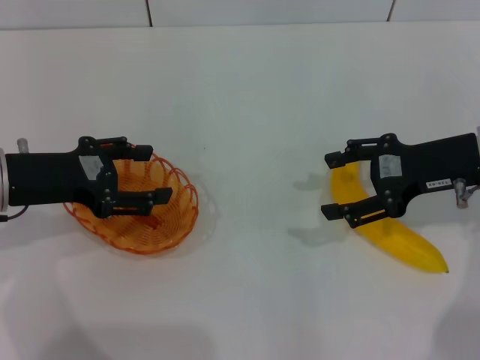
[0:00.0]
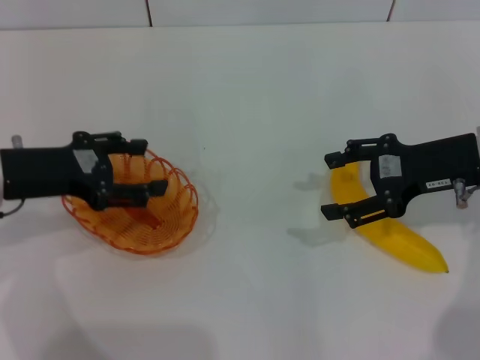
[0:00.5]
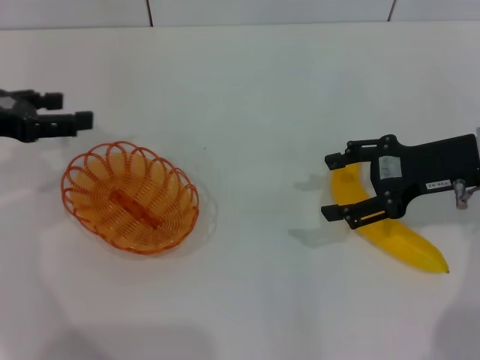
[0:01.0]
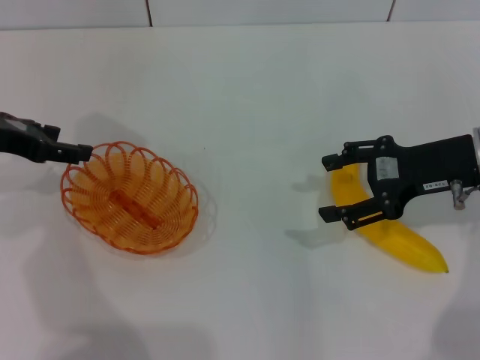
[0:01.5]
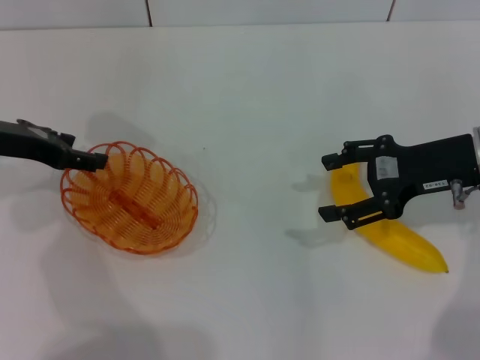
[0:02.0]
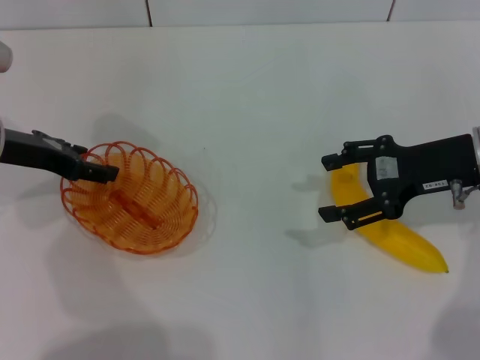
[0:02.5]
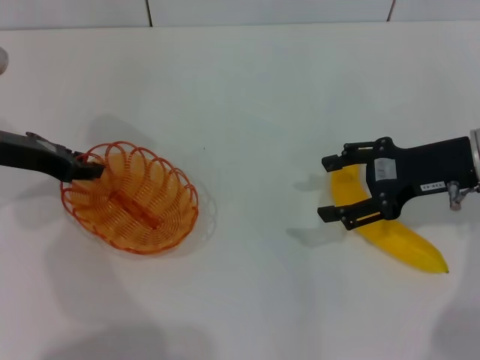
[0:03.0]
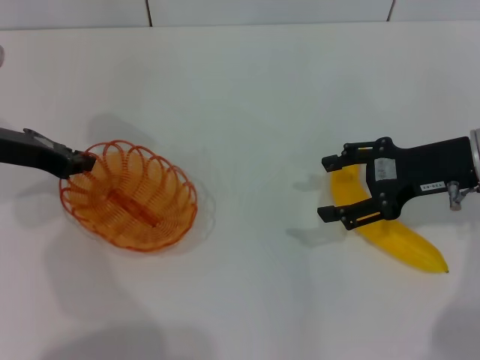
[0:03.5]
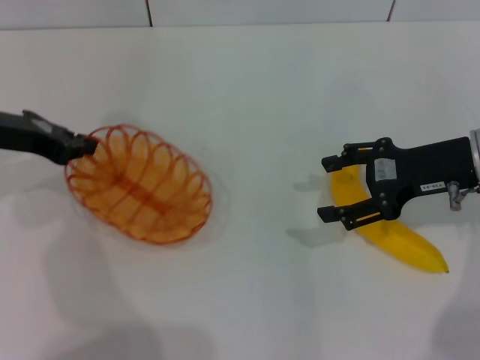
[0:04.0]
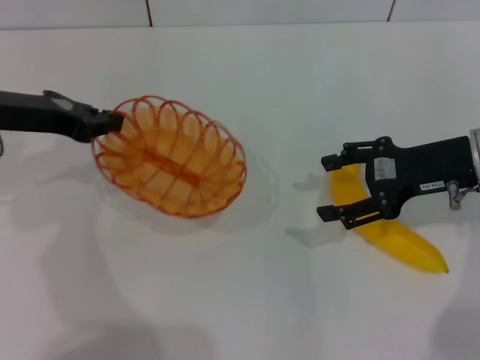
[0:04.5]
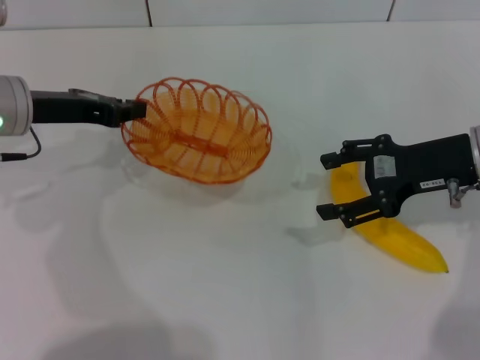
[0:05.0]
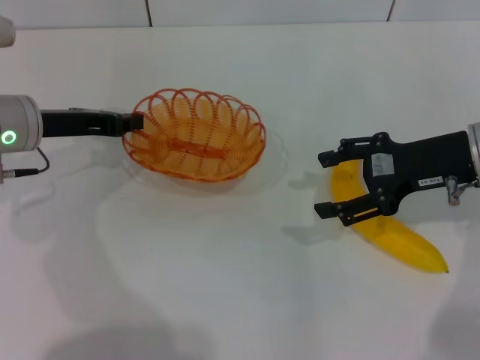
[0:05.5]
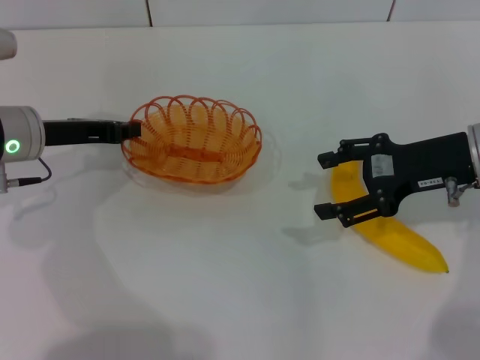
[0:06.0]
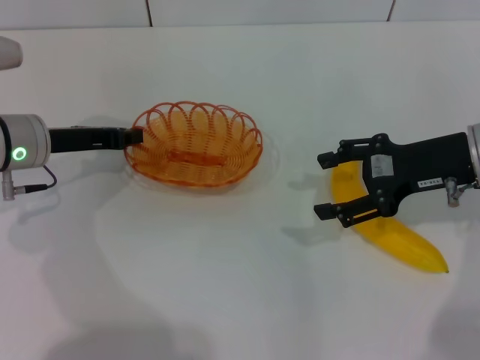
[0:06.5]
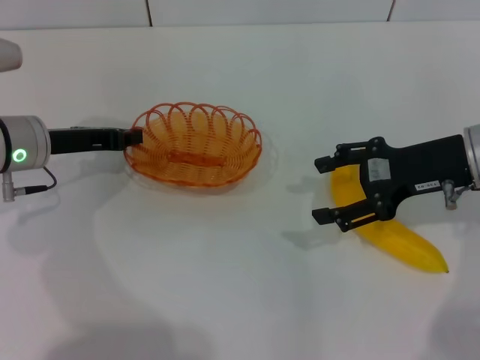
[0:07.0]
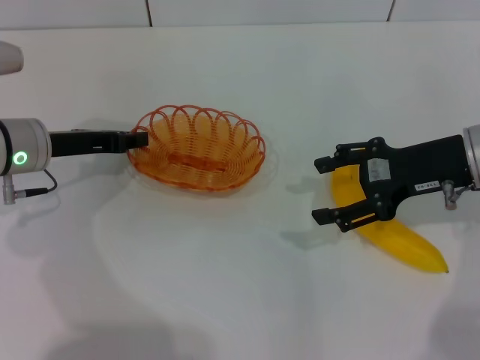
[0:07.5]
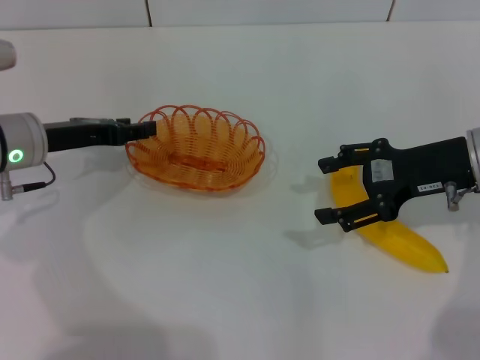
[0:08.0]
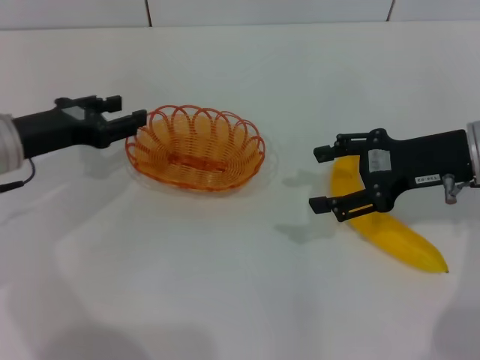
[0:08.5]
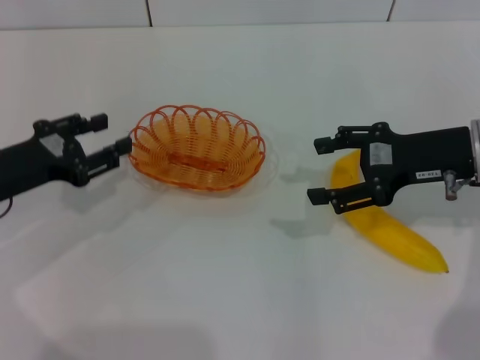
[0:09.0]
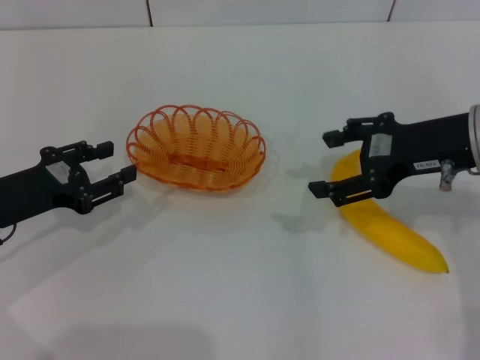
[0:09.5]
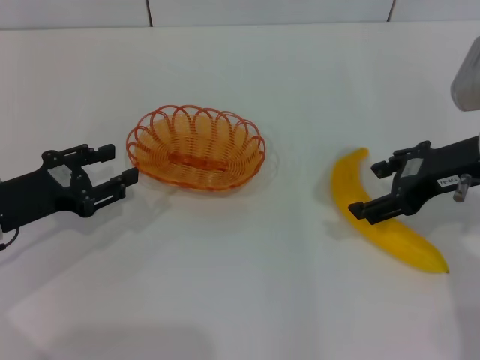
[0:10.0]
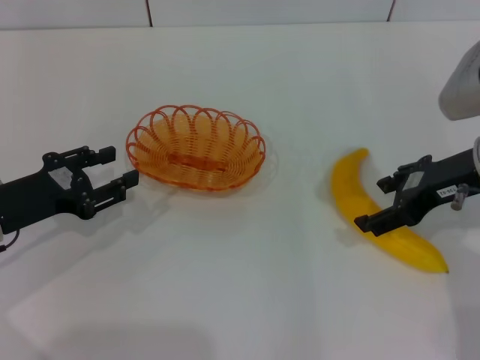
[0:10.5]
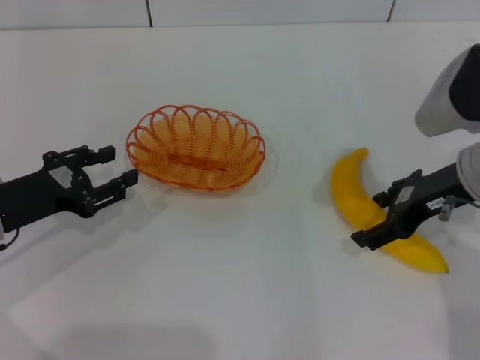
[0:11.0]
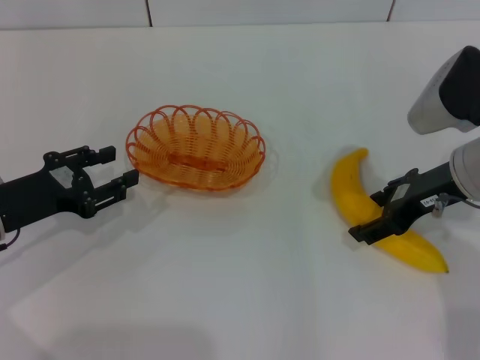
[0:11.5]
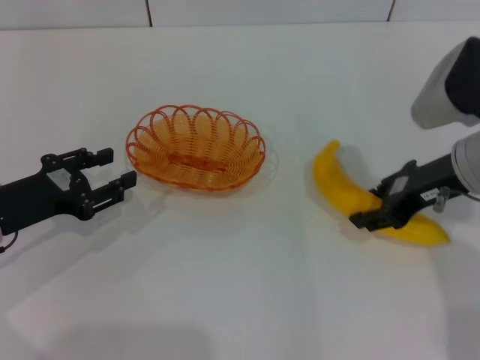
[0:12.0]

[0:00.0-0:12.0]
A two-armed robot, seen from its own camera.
Step, 0:00.0 to 0:04.0: Pick up the basket with the left gripper.
Step, 0:04.5 to 0:08.0: Place the basket in the center of view with the left gripper.
0:00.0 to 0:02.0: The left gripper is displaced forward by approximately 5 cm.
0:02.0 to 0:04.0: The left gripper closes up.
0:04.0 to 0:06.0: The left gripper heads downward, covering roughly 5 cm.
0:06.0 to 0:08.0: The left gripper opens up.
0:08.0 to 0:10.0: The left gripper travels backward by about 10 cm.
0:10.0 to 0:12.0: The right gripper closes.

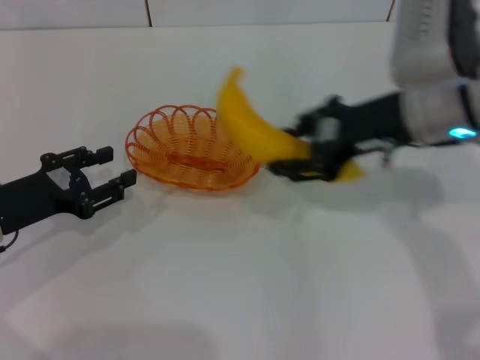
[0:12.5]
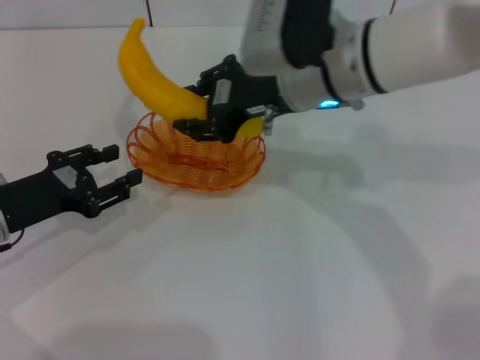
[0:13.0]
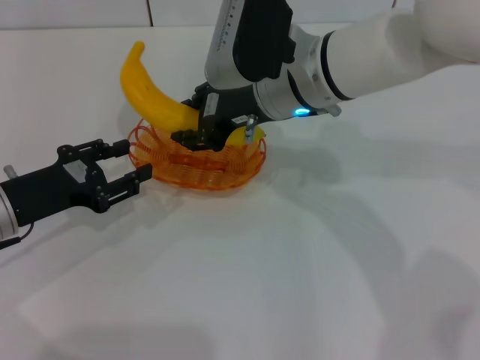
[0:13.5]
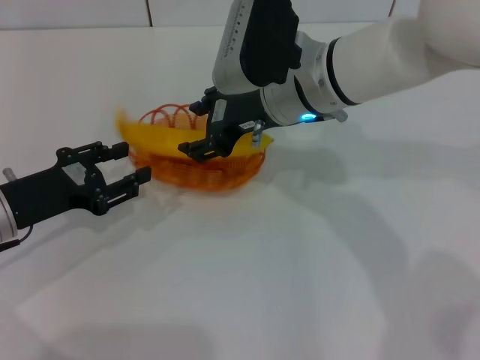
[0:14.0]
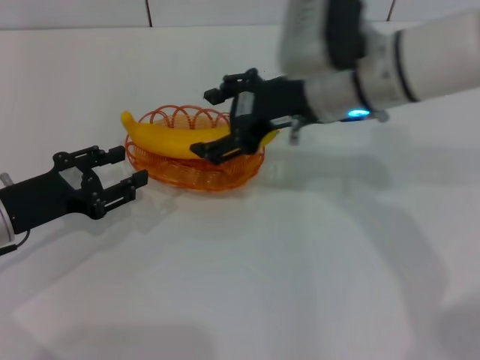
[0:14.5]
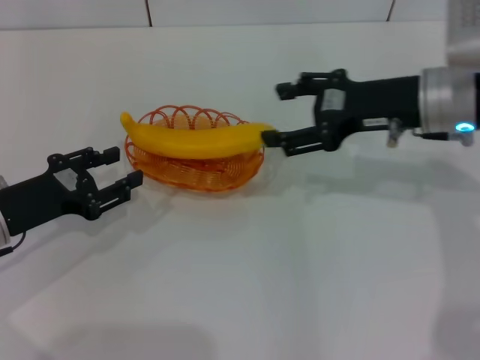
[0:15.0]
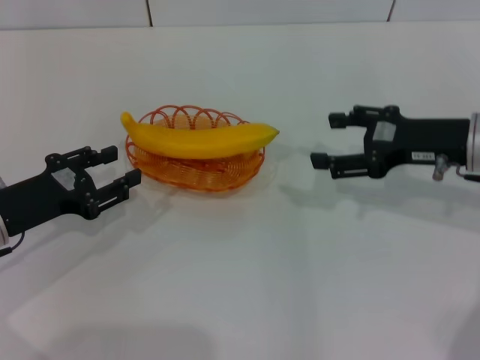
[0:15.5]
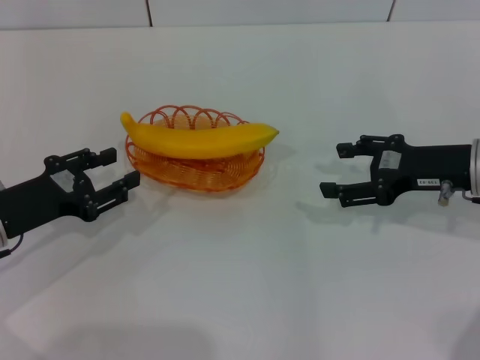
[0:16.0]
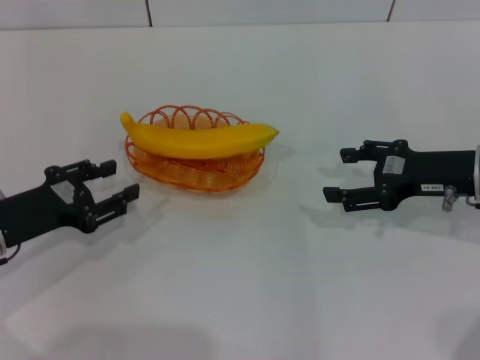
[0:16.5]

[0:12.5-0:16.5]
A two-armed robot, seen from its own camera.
Step, 0:12.5 to 0:14.5: Place the banana into the basket with the right gripper.
0:12.5 to 0:14.5: The right gripper shifts approximately 5 cm to the left, and opens up.
0:14.5 to 0:16.5: The right gripper travels to the right and downward by roughly 20 cm.

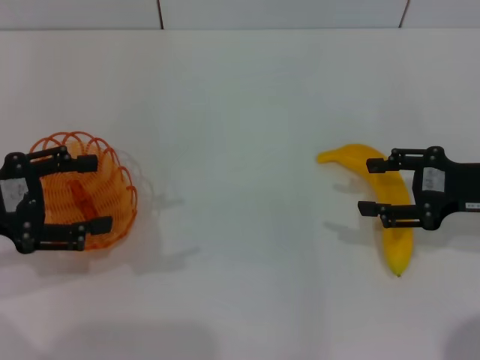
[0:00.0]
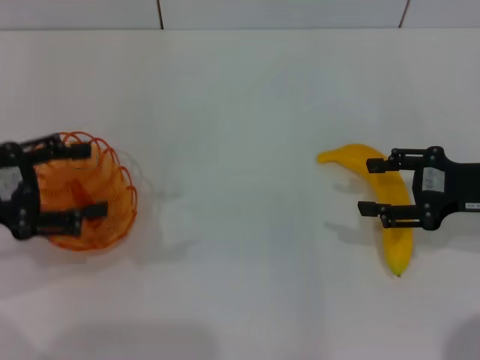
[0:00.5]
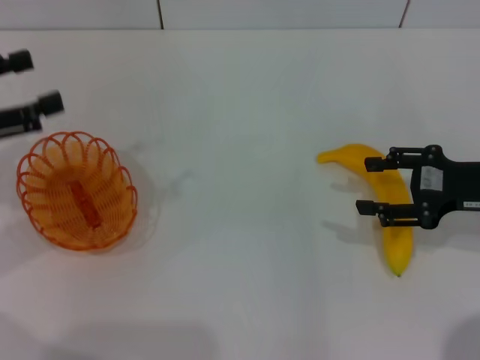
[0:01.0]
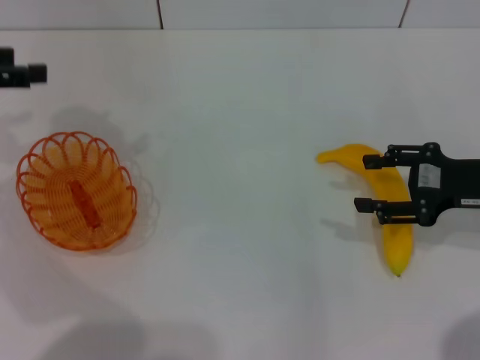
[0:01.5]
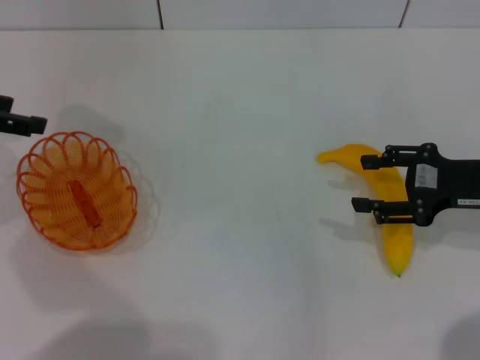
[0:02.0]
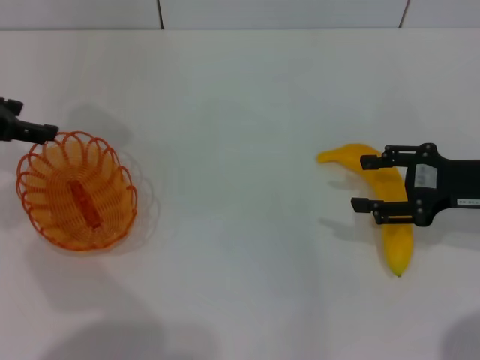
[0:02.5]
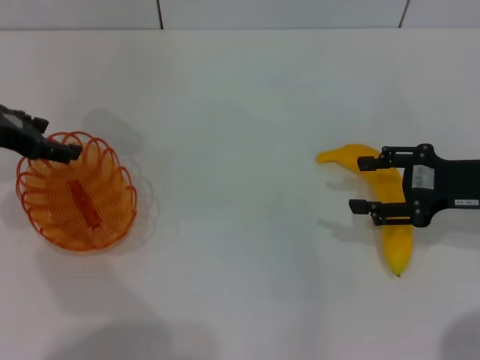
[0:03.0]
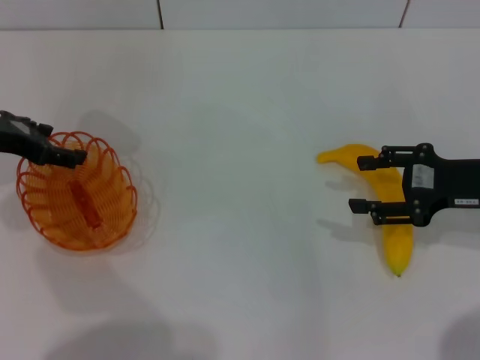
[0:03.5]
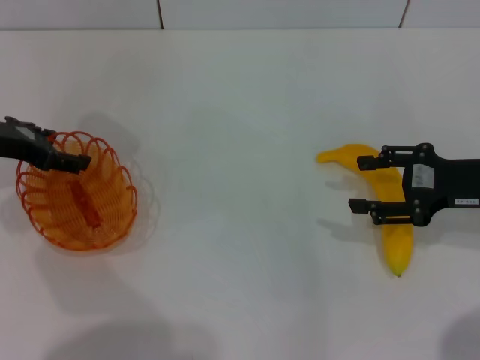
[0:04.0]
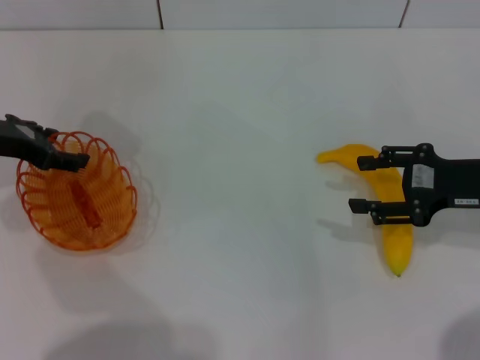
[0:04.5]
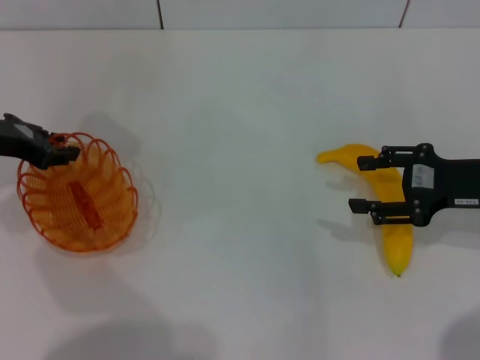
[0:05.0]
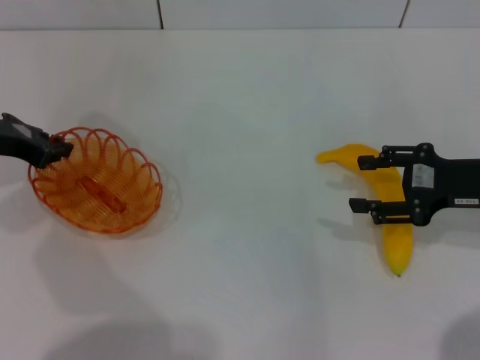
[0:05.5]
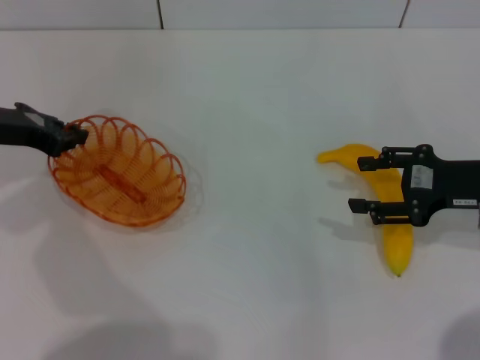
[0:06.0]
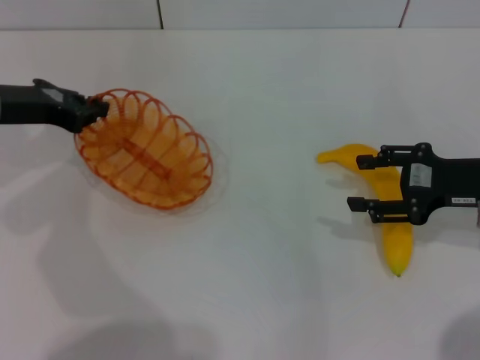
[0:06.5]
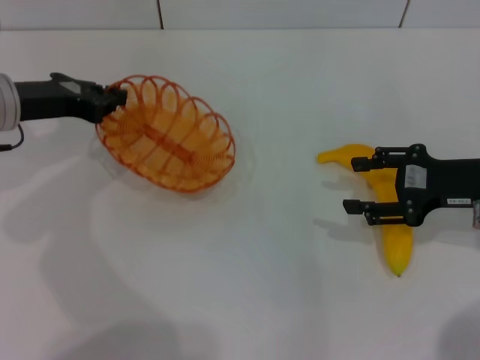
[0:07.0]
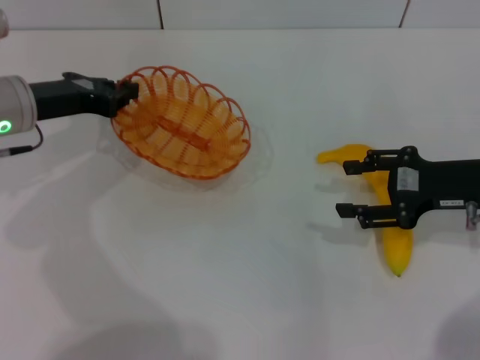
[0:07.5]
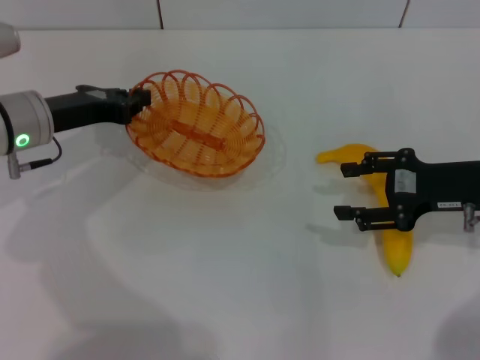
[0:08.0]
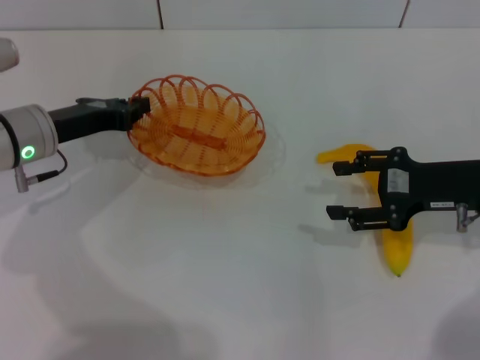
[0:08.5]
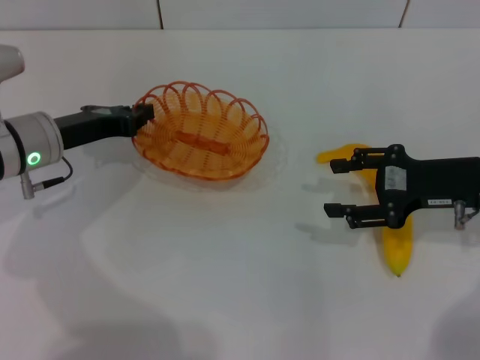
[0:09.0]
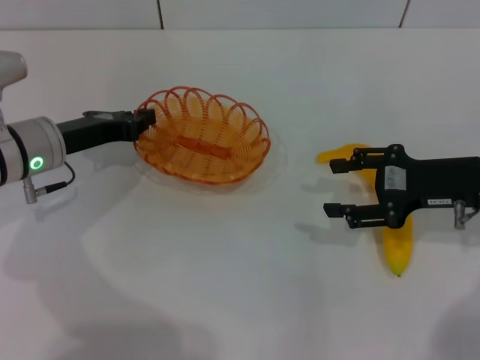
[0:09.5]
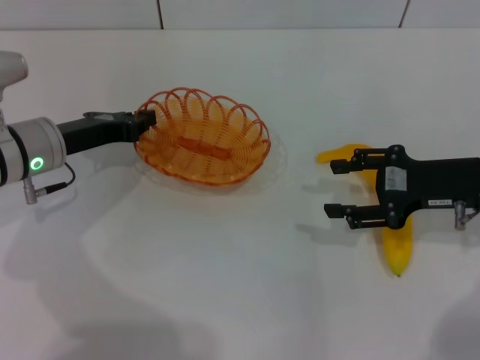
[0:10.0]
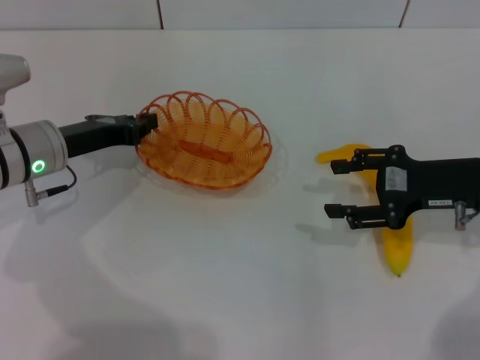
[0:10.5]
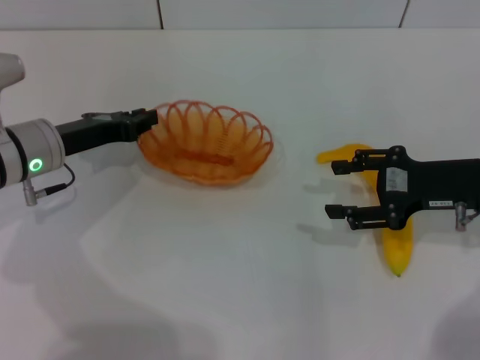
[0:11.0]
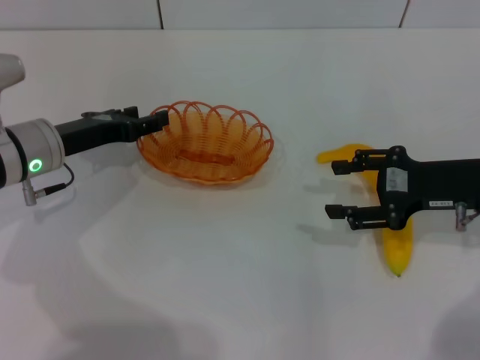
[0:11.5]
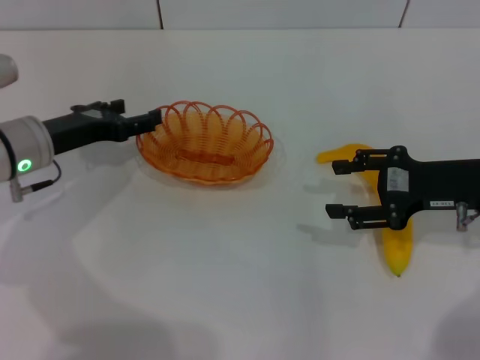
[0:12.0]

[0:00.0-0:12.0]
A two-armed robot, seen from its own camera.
Step, 0:00.0 to 0:07.0: Pick up the basket with the left gripper.
0:00.0 to 0:02.0: The left gripper moves forward and upward, about 10 cm.
0:02.0 to 0:04.0: The left gripper goes about 5 cm downward.
0:04.0 to 0:06.0: The left gripper closes.
0:06.0 to 0:08.0: The left gripper moves to the right, some 5 cm.
0:08.0 to 0:10.0: The grippers make only small movements.
0:10.0 to 0:12.0: The left gripper opens.
